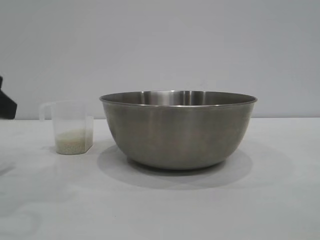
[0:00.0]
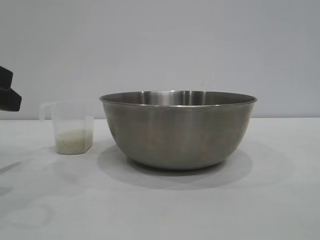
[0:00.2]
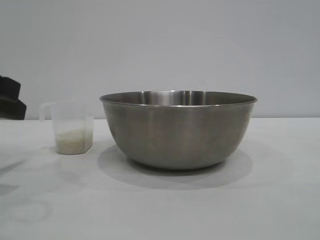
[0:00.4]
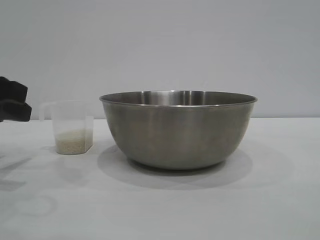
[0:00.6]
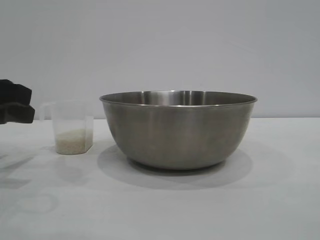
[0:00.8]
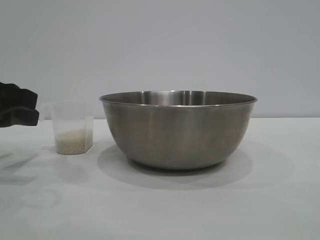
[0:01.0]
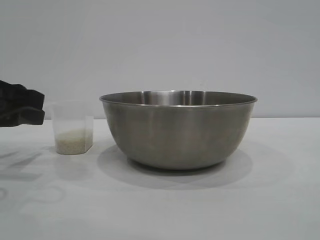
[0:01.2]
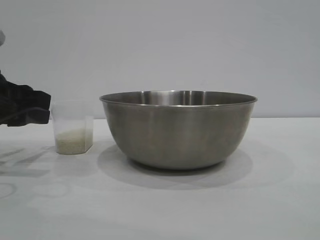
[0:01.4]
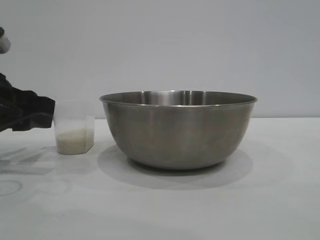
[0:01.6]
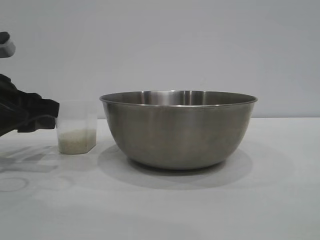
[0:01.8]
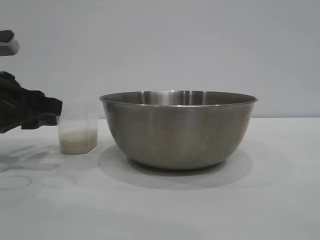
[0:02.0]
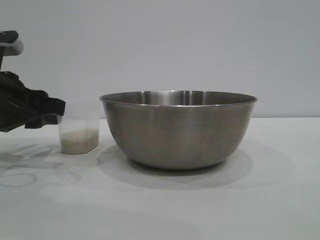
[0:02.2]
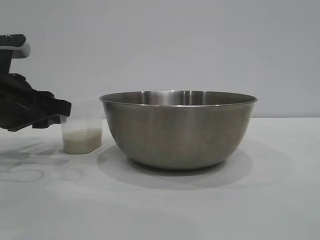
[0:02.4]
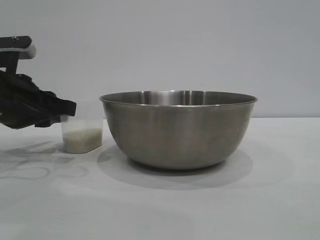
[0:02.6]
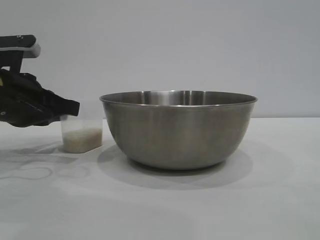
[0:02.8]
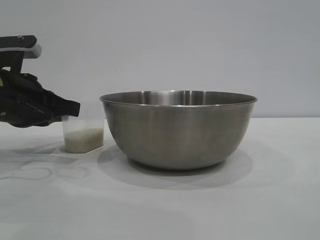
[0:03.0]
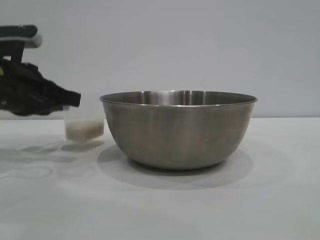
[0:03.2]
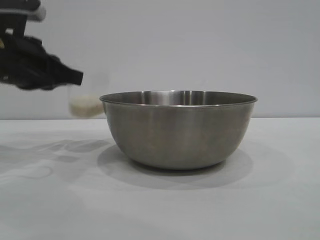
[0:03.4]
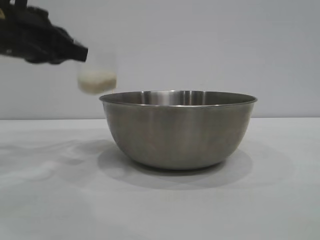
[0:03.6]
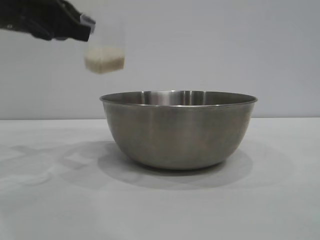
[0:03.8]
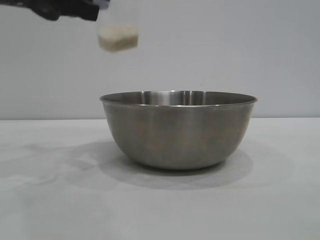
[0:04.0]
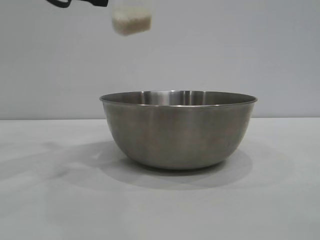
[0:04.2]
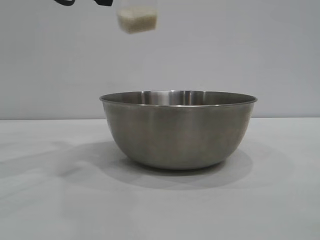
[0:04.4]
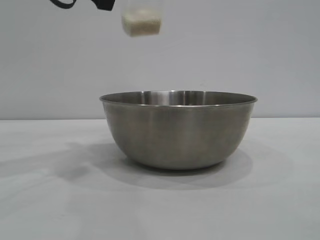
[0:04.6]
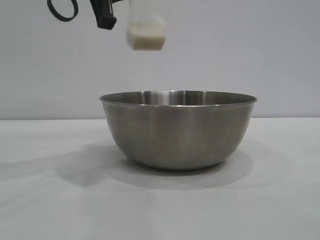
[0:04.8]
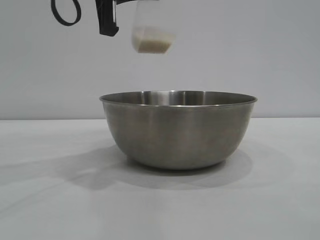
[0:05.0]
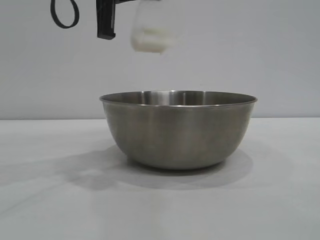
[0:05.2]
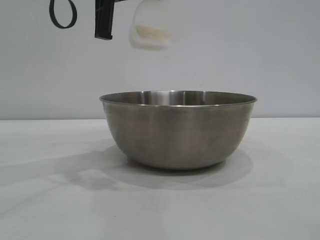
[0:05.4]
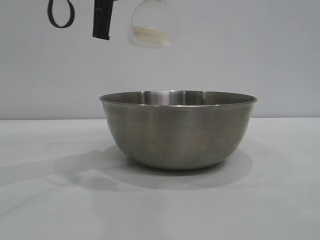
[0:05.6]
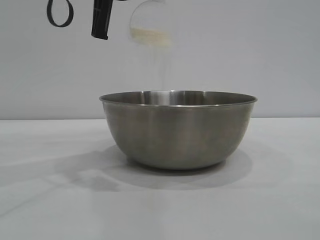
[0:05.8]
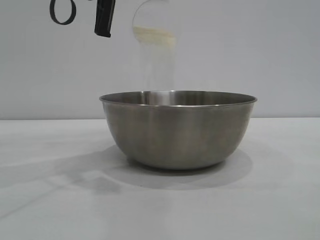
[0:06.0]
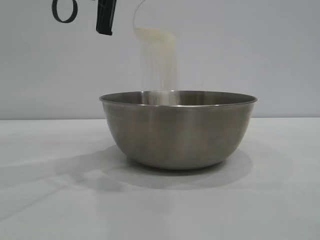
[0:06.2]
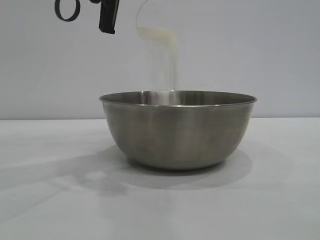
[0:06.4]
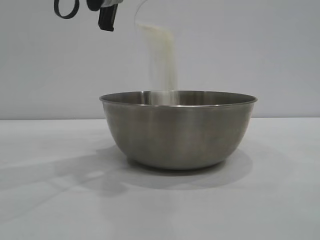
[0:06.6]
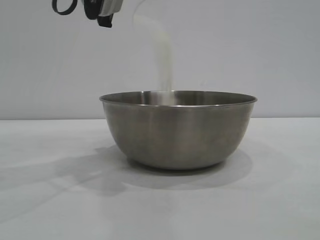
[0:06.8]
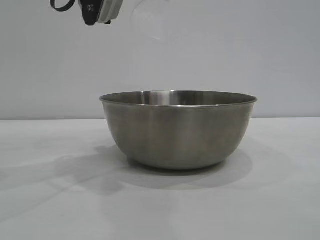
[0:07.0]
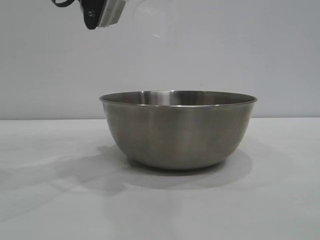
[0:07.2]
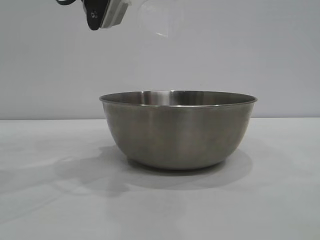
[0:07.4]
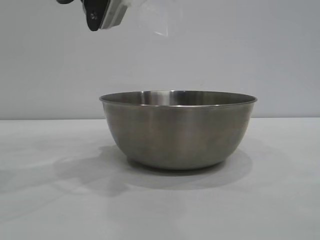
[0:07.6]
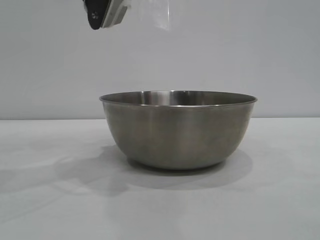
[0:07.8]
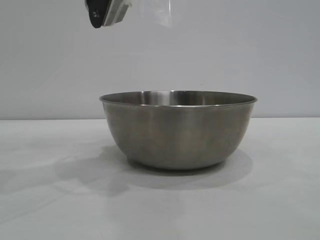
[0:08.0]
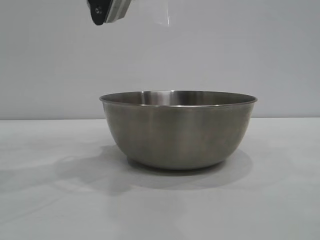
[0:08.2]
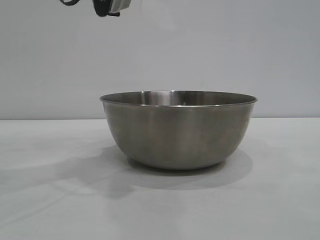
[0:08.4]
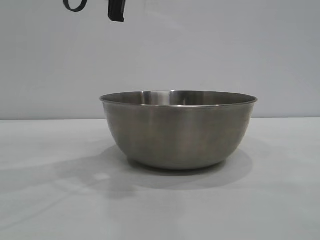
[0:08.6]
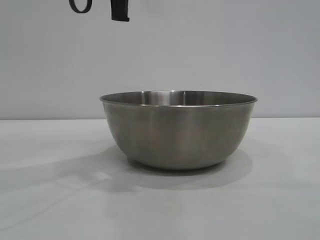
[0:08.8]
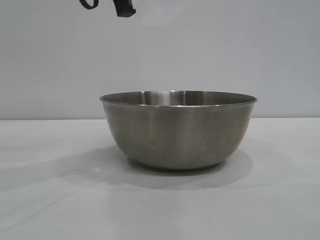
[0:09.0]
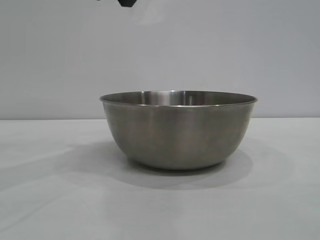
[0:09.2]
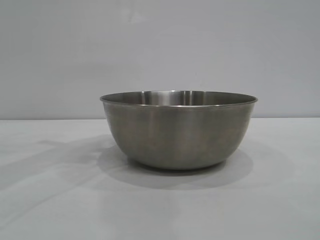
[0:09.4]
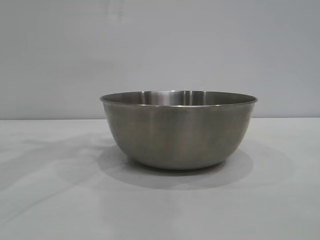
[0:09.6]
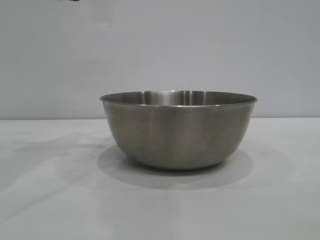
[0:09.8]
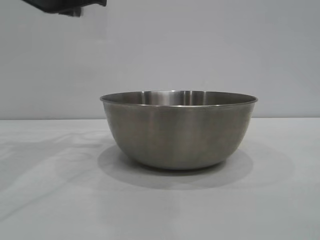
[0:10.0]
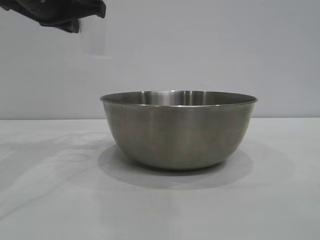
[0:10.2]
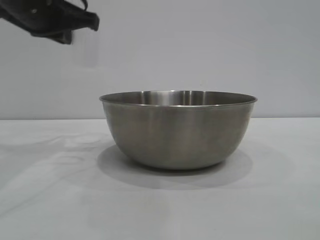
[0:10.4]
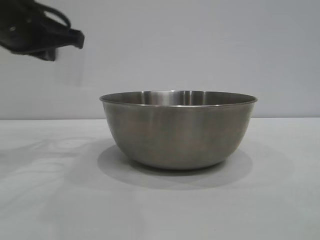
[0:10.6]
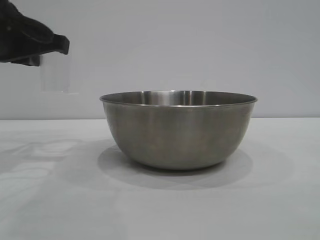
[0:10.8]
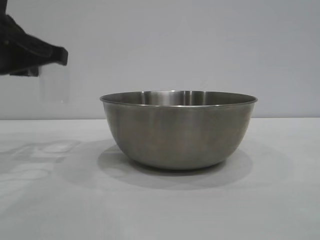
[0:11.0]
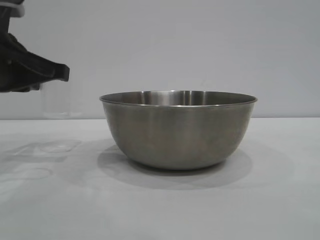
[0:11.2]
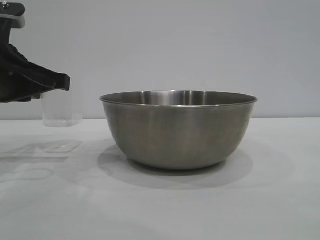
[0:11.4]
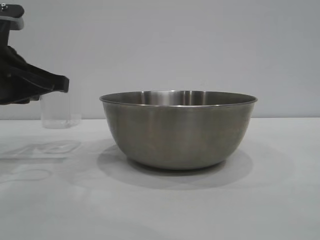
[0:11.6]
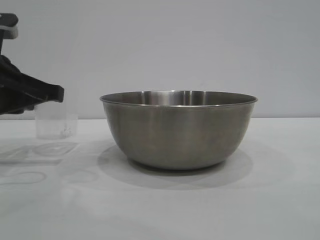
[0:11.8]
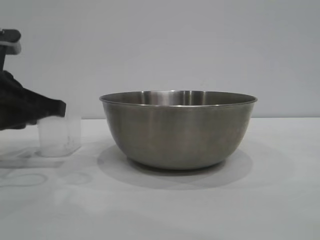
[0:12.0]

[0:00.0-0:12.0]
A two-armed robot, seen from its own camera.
Task of the whole recording: the right gripper grasp the rice container and place it in the center of the table, the left gripper grasp the rice scoop and pour the rice into the rice container.
Step, 0:00.0 to 0:03.2: Pick up the cup with rice in it with the left gripper.
Step, 0:03.4 to 0:08.4: Pour the rice from the cup into the bowl with the left gripper.
